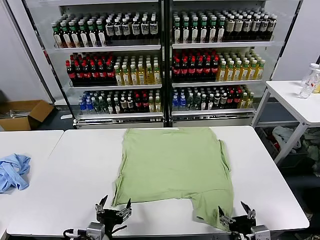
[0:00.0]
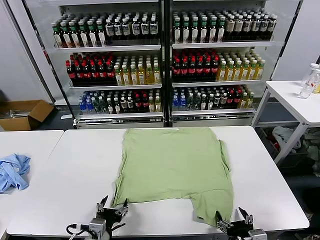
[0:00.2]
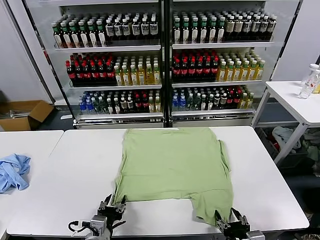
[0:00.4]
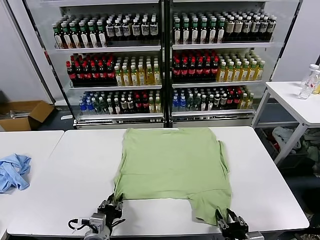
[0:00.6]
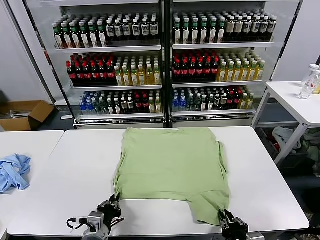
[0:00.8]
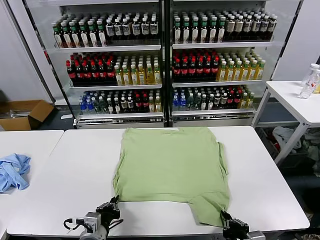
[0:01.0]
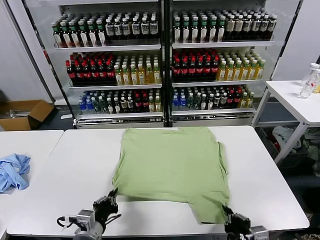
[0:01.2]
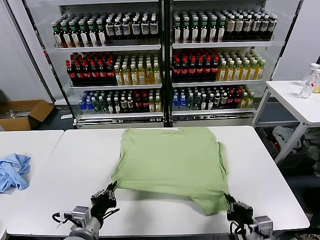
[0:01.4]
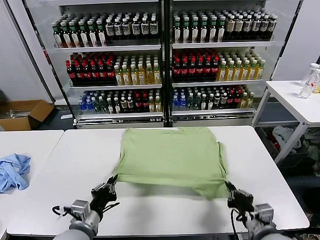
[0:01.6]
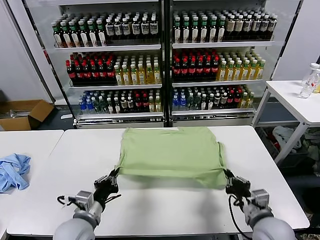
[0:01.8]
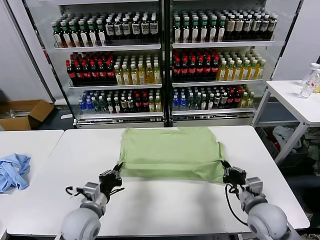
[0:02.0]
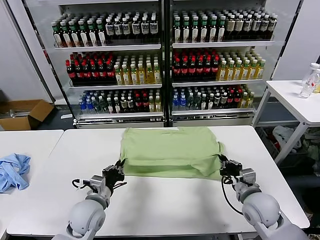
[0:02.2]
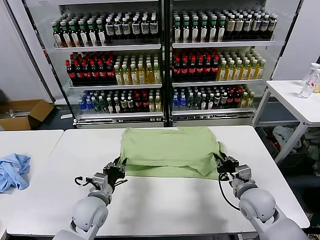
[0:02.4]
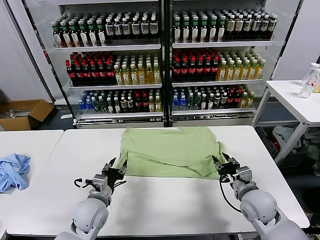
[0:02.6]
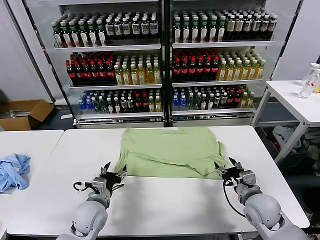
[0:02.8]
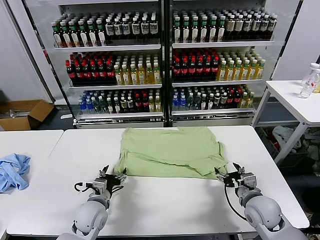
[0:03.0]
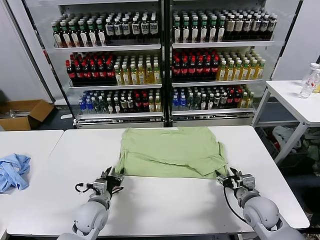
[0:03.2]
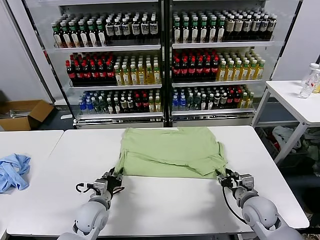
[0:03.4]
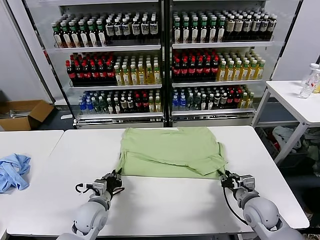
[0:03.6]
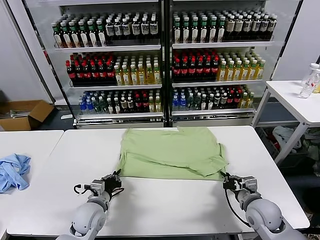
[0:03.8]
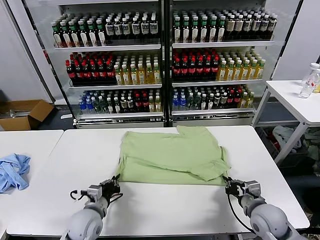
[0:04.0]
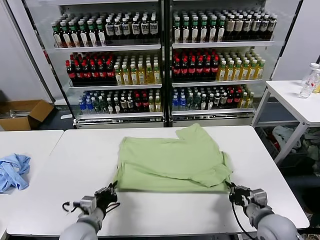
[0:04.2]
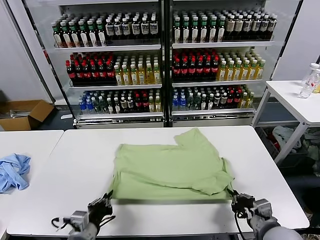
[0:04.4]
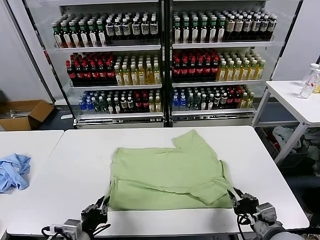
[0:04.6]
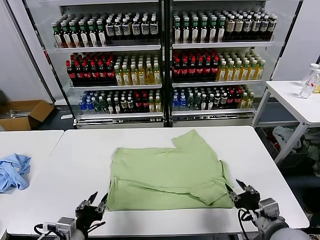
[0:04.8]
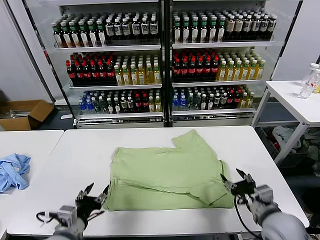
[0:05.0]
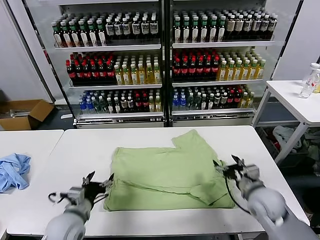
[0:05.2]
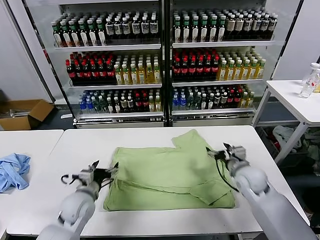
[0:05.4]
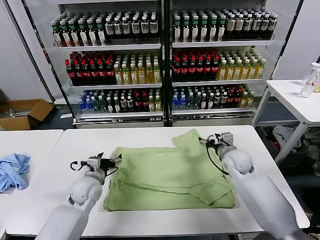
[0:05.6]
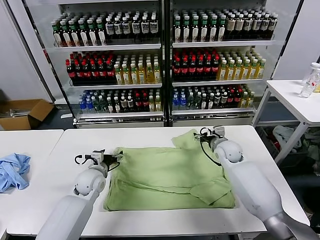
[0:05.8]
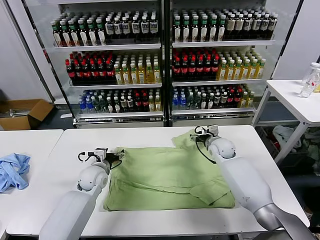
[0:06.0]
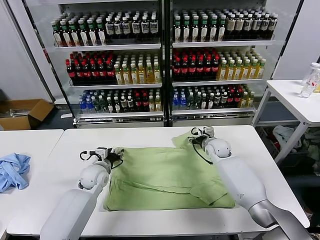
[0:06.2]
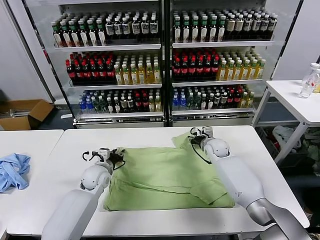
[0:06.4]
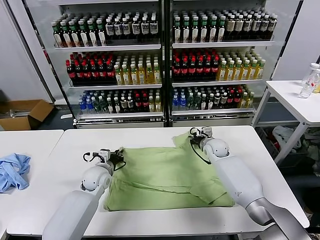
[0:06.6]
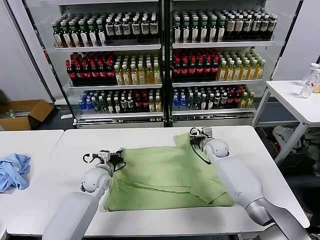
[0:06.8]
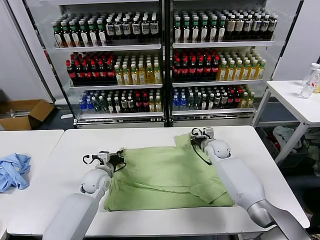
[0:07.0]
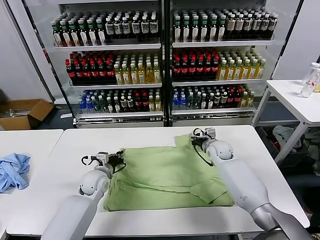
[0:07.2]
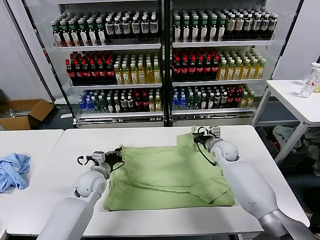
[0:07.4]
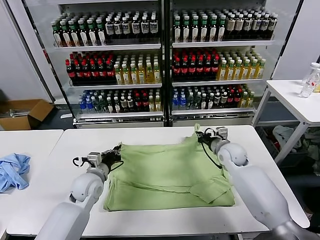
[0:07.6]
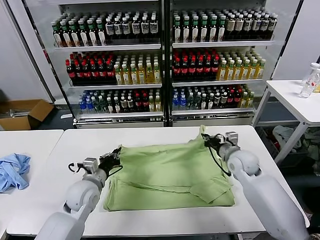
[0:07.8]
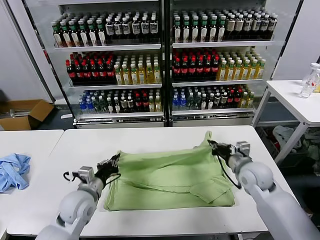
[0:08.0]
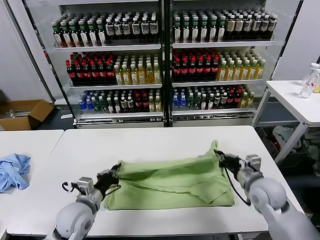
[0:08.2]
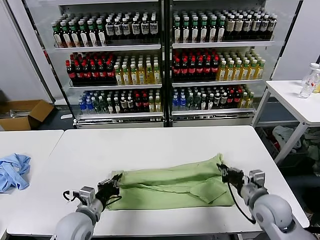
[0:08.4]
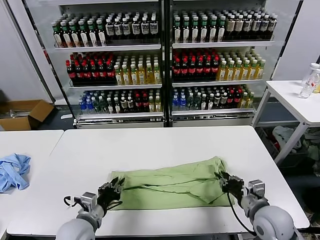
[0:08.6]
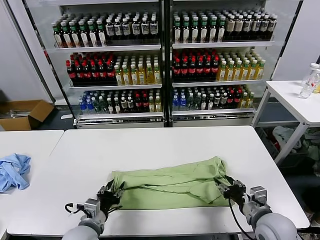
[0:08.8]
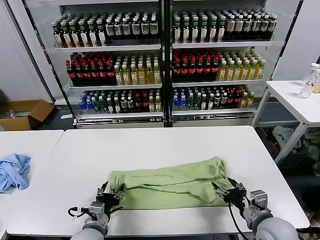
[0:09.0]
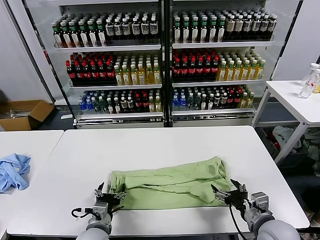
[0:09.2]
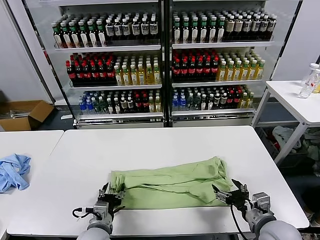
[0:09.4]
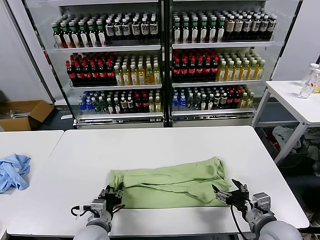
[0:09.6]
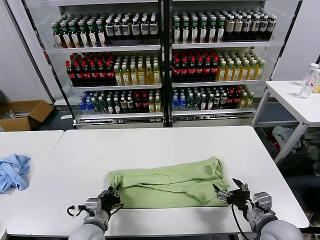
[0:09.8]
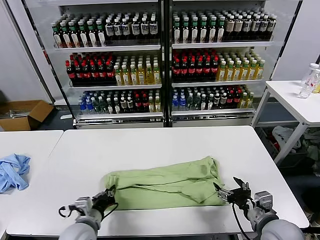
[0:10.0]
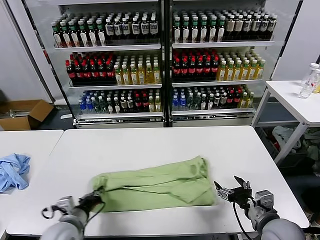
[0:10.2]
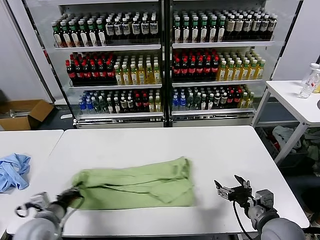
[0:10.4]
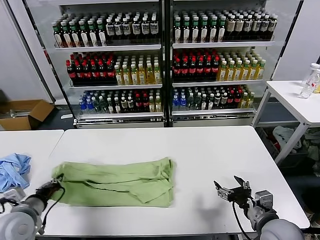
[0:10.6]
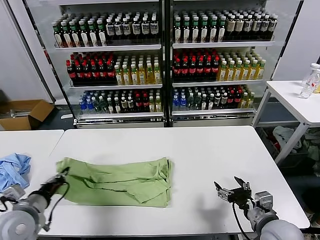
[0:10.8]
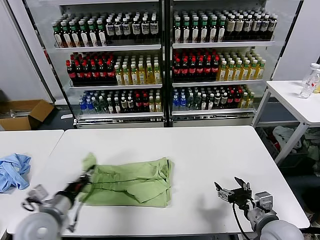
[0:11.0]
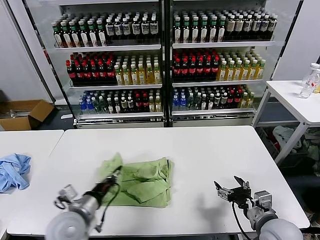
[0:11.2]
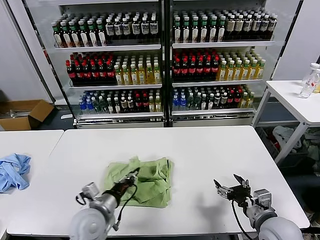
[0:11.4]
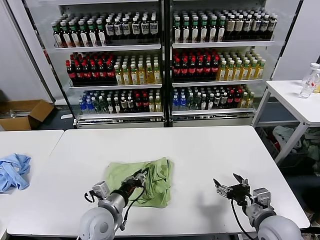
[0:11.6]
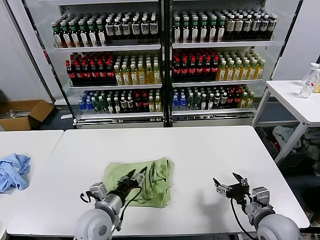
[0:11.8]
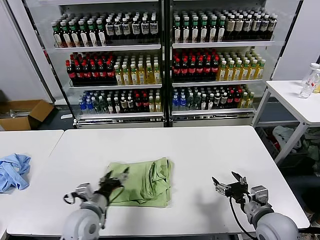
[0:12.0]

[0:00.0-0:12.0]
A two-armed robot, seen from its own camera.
Task of the whole recording: fold and organize the clothes.
Step, 0:00.0 to 0:01.0: use both grippers simultaneously to clamp the lower edge of the clothing fabric.
Step, 0:01.2 to 0:02.6: use both grippers to drag the lower edge of the fabric forward and fold it over the upper edge.
Step, 0:02.8 to 0:04.6: Drag the clothes downward with both gripper.
Step, 0:04.8 to 0:06.8: use both grippers simultaneously to clamp the upper edge of the clothing fabric.
Step, 0:07.0 to 0:08.6: use both grippers to drag the upper edge of the fabric backward and fold it over the lower edge.
Step, 0:08.8 to 0:10.0: use the left gripper to clamp the left edge of the fabric.
Step, 0:10.2 to 0:11.6: use the left gripper to drag the left edge of the fabric to the left and folds it over the right edge.
0:01.6 to 0:03.0: The left gripper shifts some 10 cm forward and downward, and opens its fingers. Meanwhile the right gripper shifts roughly 10 cm forward, and opens up.
0:03.0 to 0:04.4: The grippers both shift backward by about 10 cm. The right gripper closes. Meanwhile the left gripper closes its fingers.
0:04.4 to 0:06.0: The grippers both shift forward by approximately 30 cm. The right gripper opens up. Meanwhile the left gripper opens its fingers.
0:06.0 to 0:07.6: The grippers both shift backward by about 5 cm. The right gripper closes. Meanwhile the left gripper closes its fingers.
0:07.6 to 0:09.0: The left gripper travels backward by approximately 15 cm, and opens its fingers; the right gripper is displaced backward by approximately 25 cm, and opens.
0:09.0 to 0:10.4: The left gripper travels to the left by about 15 cm, and closes its fingers.
0:10.4 to 0:12.0: The left gripper moves left and right over about 20 cm, changing direction 2 times, and opens its fingers.

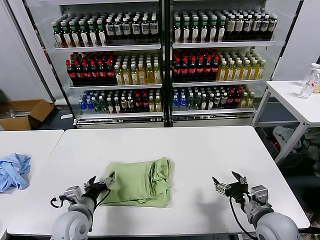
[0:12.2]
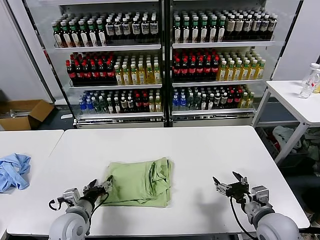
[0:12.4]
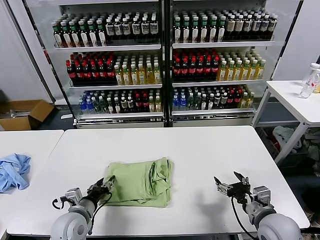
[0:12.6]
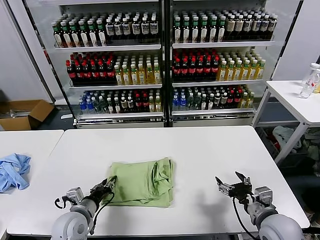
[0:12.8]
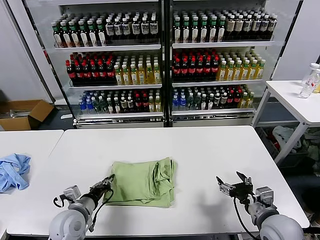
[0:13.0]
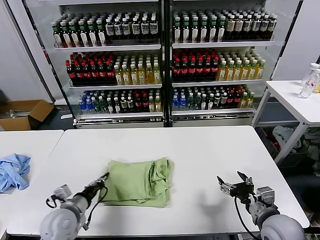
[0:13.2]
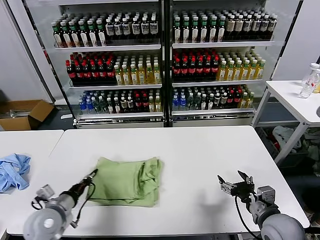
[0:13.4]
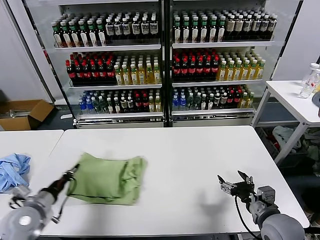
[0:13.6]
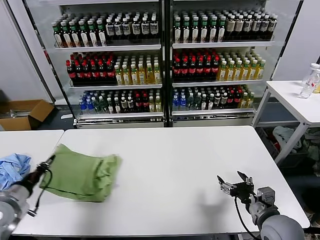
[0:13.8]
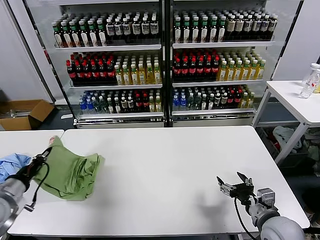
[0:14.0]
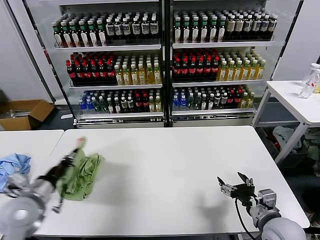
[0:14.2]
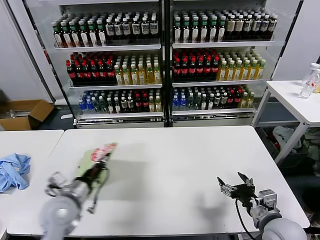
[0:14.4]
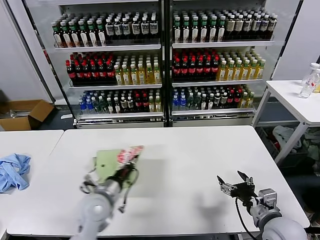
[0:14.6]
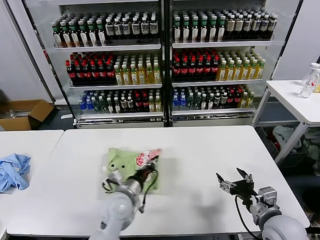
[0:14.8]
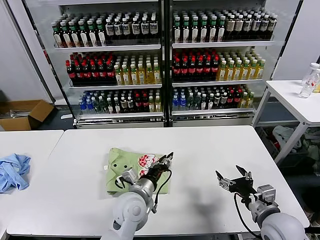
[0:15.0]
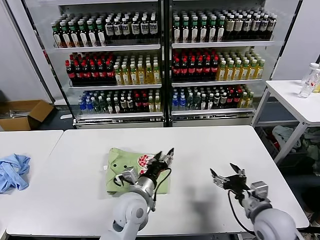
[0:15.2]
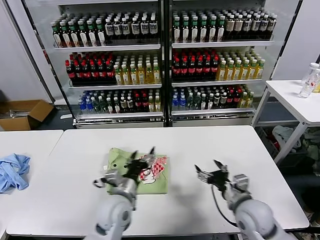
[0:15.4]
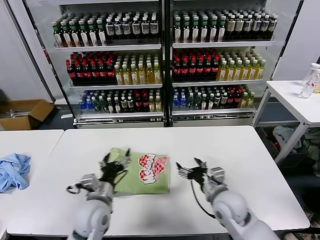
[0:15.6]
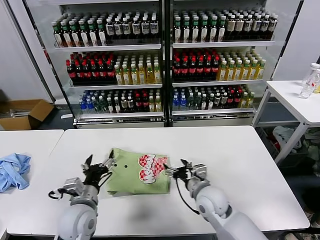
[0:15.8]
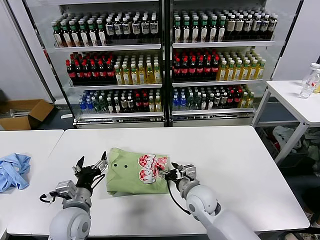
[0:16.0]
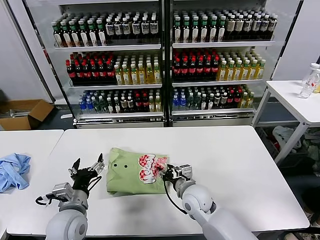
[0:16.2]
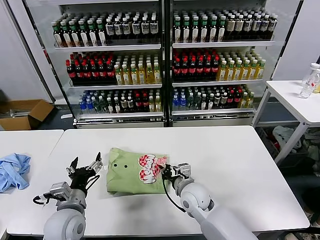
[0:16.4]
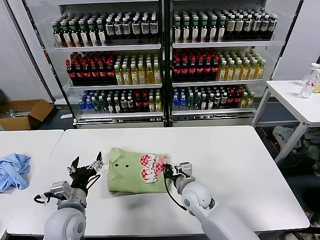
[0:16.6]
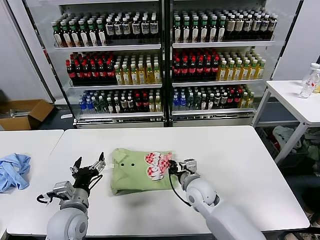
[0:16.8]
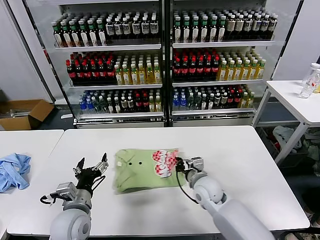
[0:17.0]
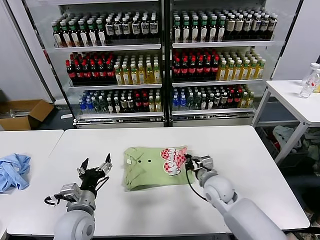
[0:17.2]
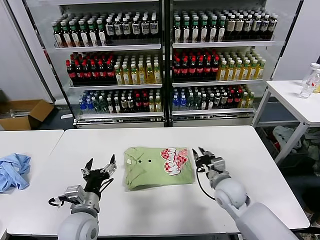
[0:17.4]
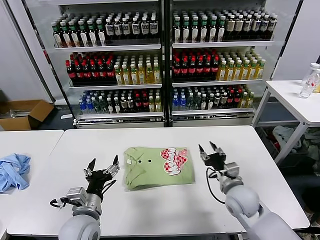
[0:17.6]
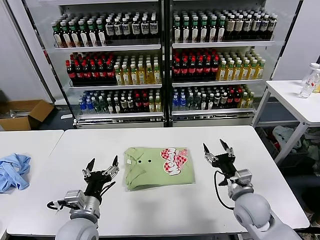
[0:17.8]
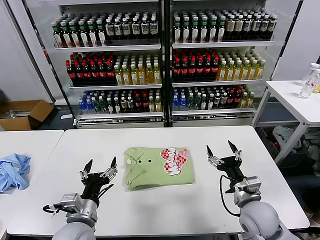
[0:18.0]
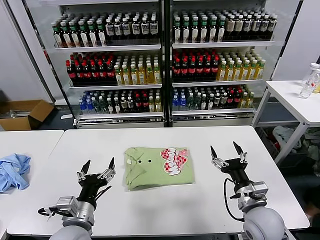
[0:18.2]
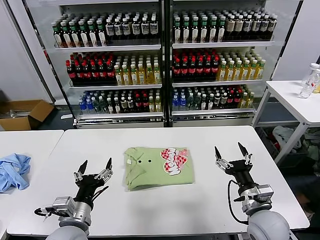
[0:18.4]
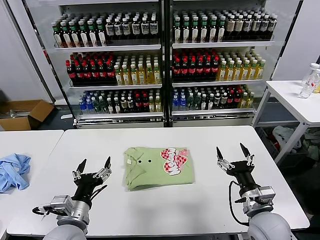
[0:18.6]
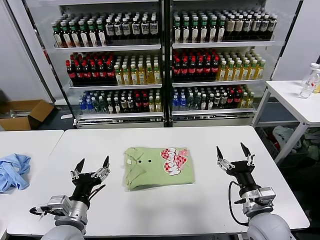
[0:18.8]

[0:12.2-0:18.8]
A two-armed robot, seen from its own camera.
Task of the whole recording: fold and organize the clothes.
Step, 0:12.2 to 0:14.8: Flip the folded clothes over with left gripper.
Step, 0:15.0 to 0:17.2: Drag the clothes to the center of the table.
0:12.2 to 0:13.8: The left gripper goes roughly 20 cm to the left and upward, and closes up.
0:13.8 to 0:15.4: The left gripper shifts roughly 30 cm to the right, and opens. Meanwhile the right gripper ends up some 5 cm from where it was.
0:15.4 to 0:17.2: The left gripper heads to the left, covering about 10 cm. The right gripper travels forward and to the left by about 15 cm, and closes up.
0:17.2 to 0:18.8: The right gripper is displaced backward and to the right by about 15 cm, and opens. Meanwhile the left gripper travels backward by approximately 5 cm.

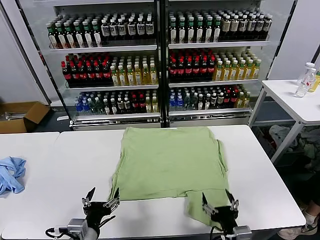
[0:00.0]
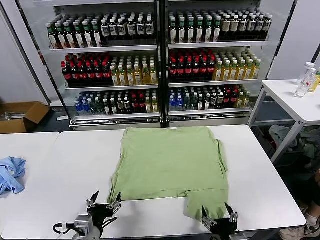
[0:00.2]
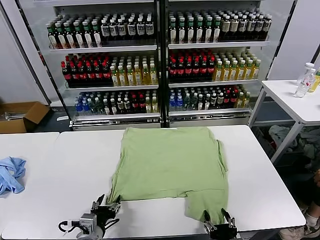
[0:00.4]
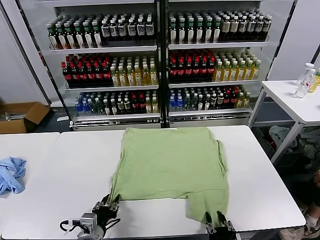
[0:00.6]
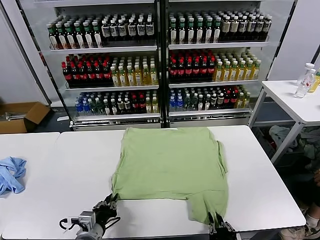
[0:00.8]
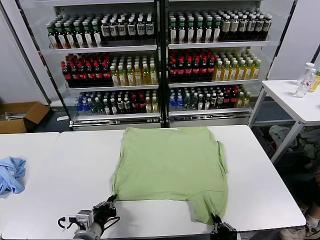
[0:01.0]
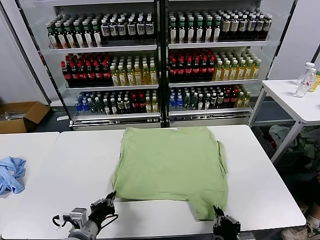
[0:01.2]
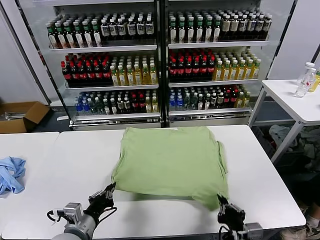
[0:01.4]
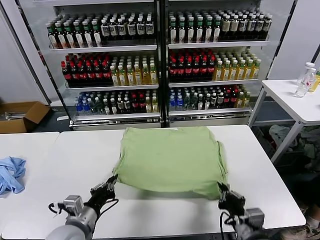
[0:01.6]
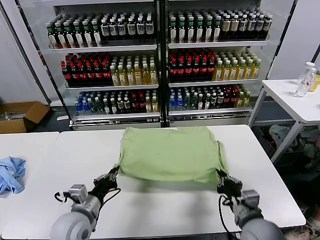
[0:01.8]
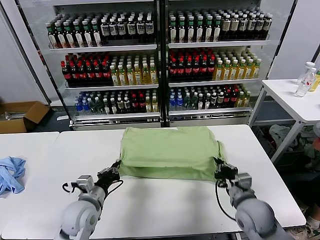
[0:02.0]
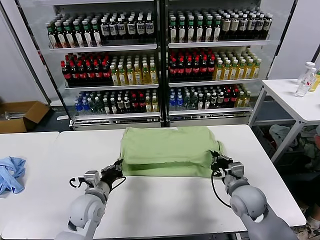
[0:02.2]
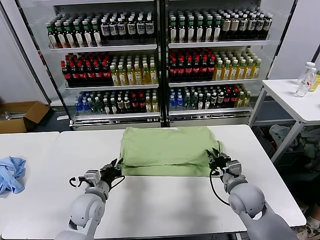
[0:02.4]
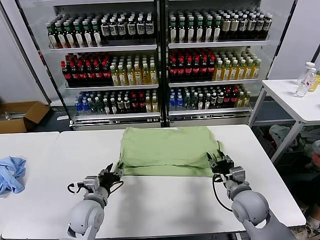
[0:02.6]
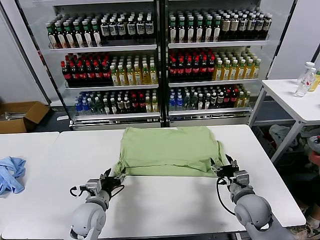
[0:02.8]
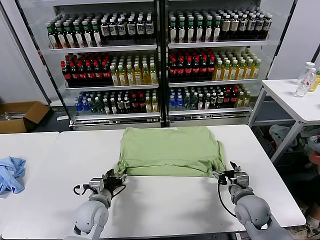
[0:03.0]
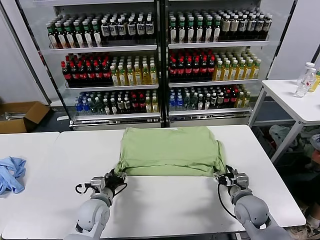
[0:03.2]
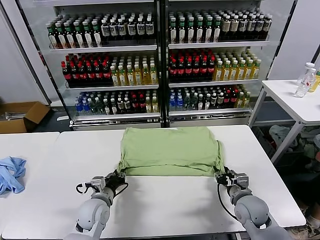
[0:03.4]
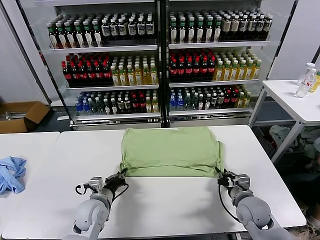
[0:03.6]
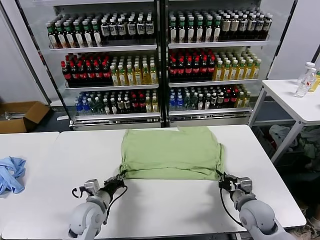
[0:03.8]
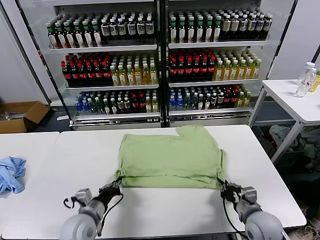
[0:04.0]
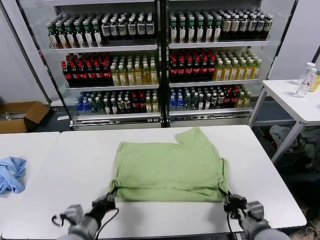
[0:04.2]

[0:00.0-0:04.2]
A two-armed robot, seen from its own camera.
Task of the whole recording: fold and organize the clothes.
Step, 0:00.0 to 0:01.0: use both grippers simultaneously to clamp the lower edge of the clothing fabric.
Step, 0:01.2 to 0:02.4: use both grippers to drag the lower edge of the fabric forward and fold it over the upper edge.
0:01.4 to 0:02.8: The right gripper shifts approximately 15 cm forward, and opens. The left gripper shifts roughly 10 cm forward and downward, and opens.
0:02.8 to 0:04.2: The grippers both shift backward by about 10 cm. The left gripper closes its fingers. The right gripper closes.
